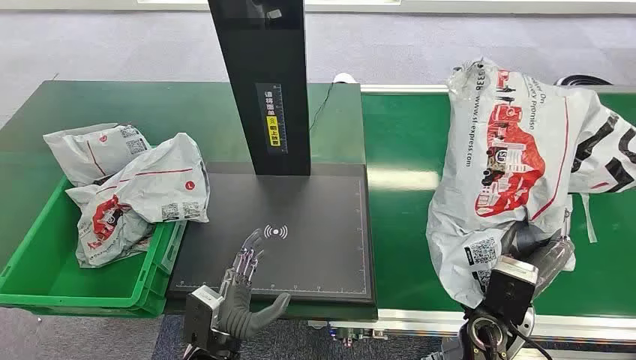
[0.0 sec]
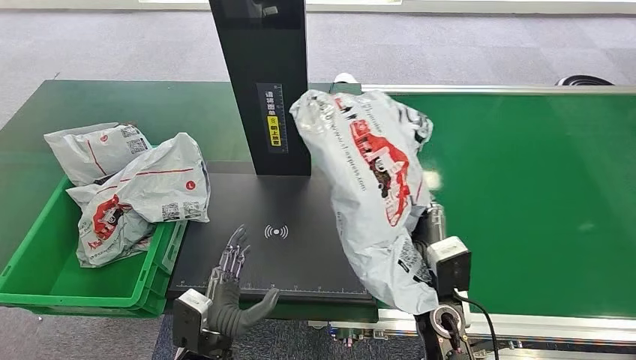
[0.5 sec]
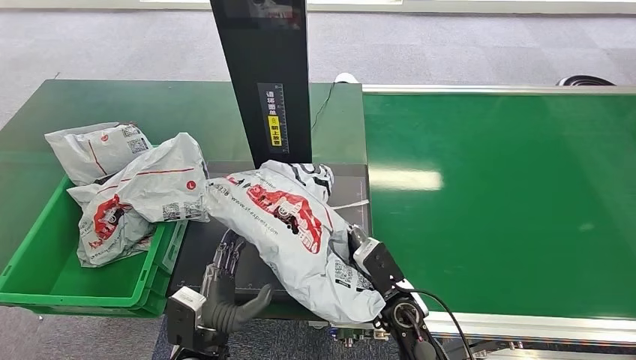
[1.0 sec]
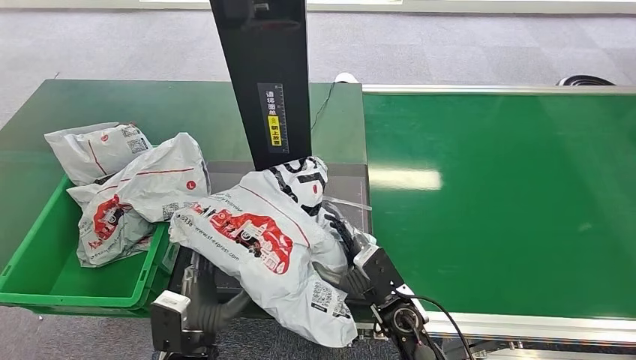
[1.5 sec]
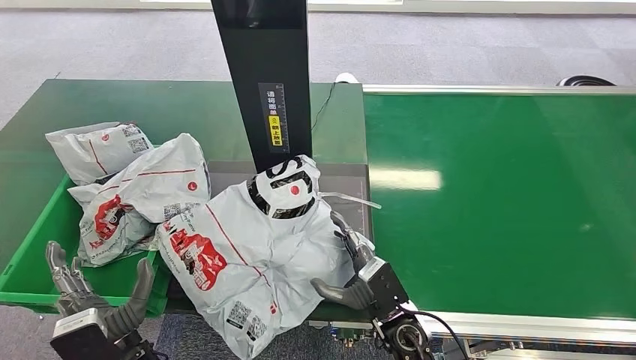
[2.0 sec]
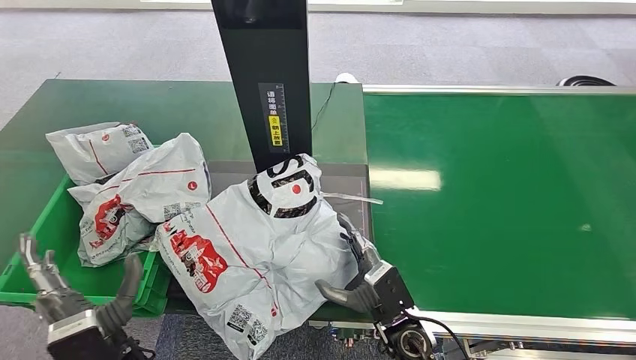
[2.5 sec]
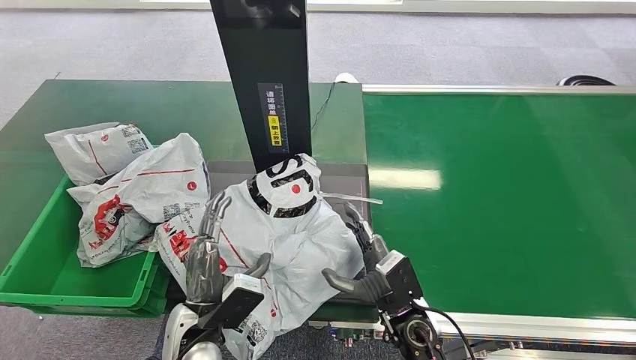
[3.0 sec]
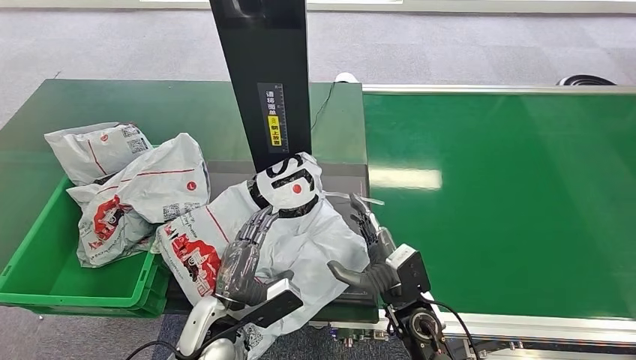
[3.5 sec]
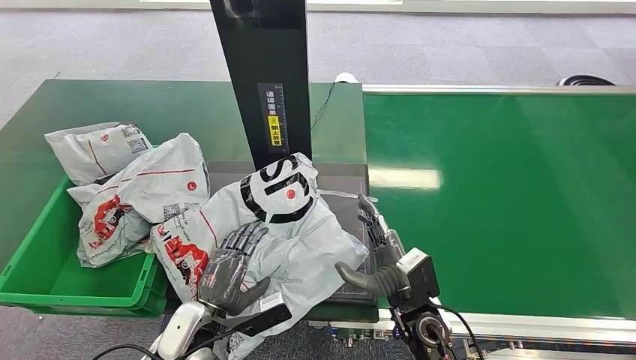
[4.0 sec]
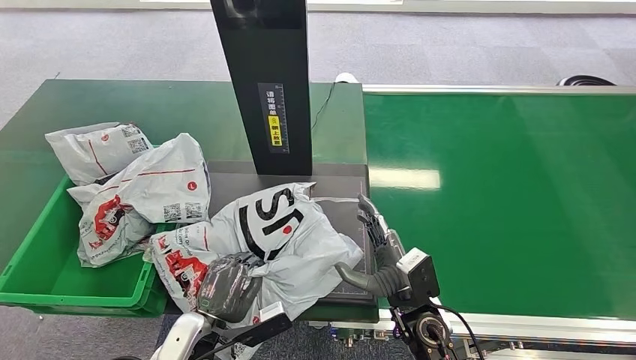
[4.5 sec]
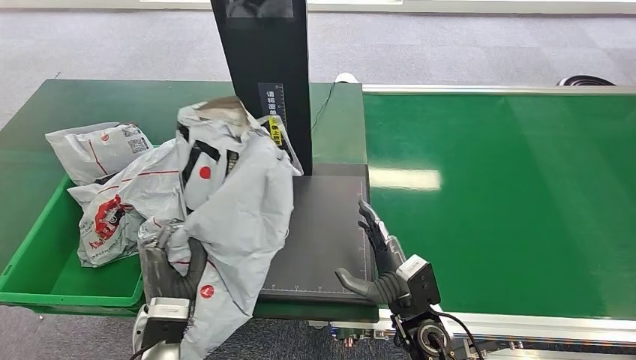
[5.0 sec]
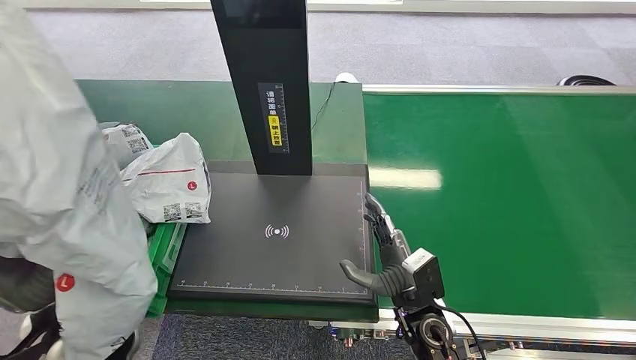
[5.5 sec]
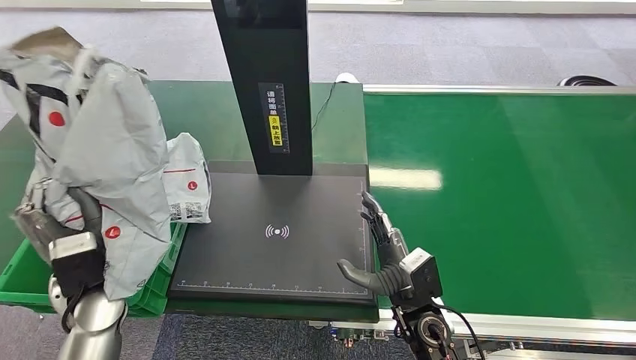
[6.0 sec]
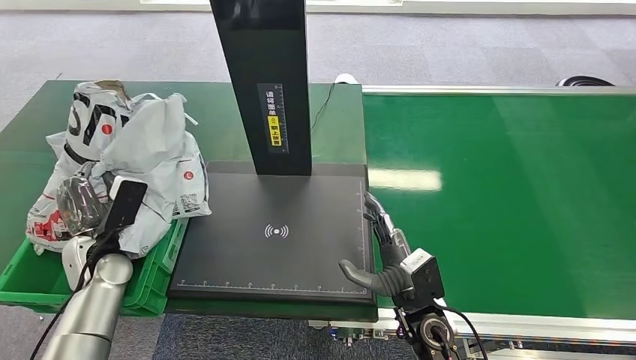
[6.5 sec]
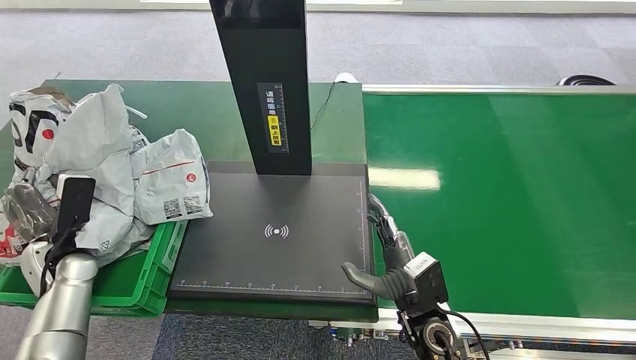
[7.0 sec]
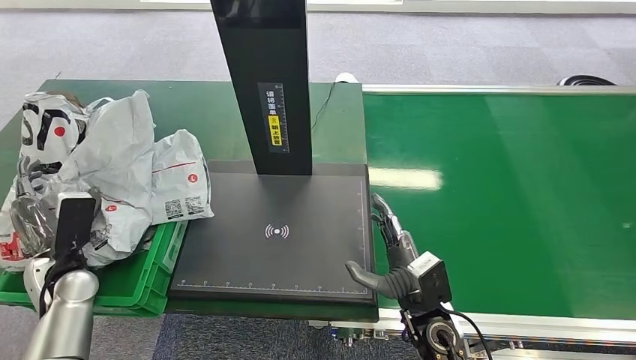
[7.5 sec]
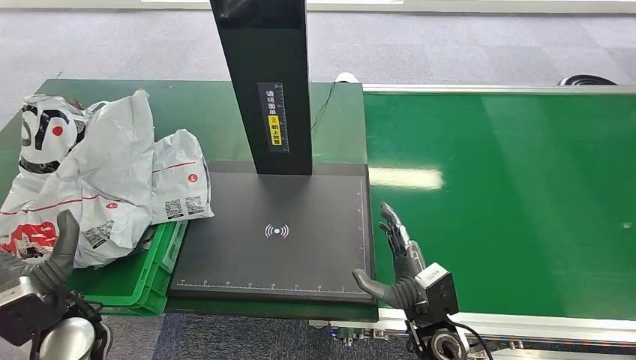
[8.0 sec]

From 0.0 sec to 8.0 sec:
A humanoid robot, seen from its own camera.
From 2.0 sec to 4.0 sec: The left hand moves forward, approximately 5 cm.

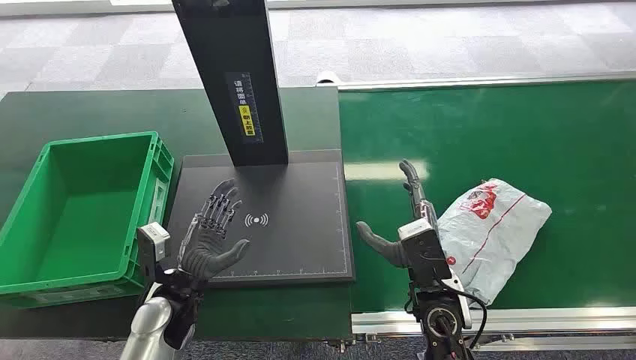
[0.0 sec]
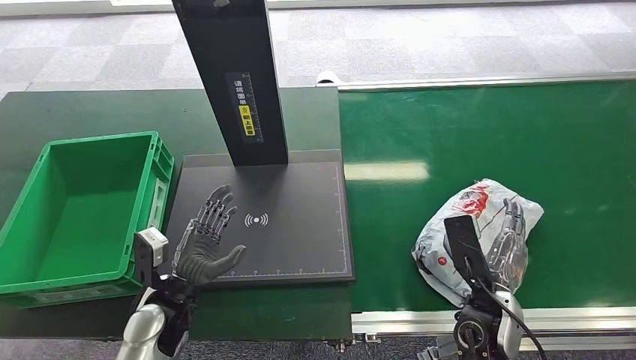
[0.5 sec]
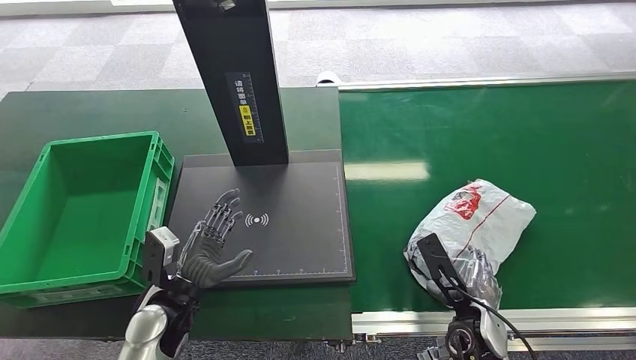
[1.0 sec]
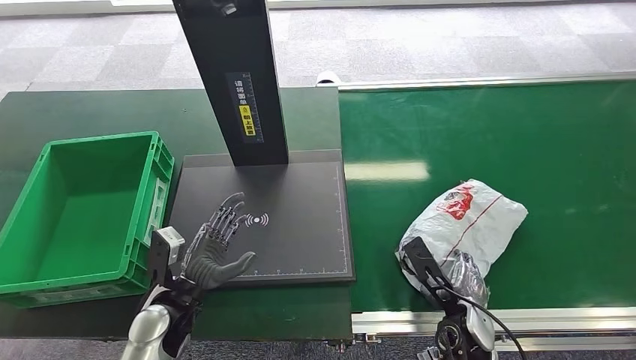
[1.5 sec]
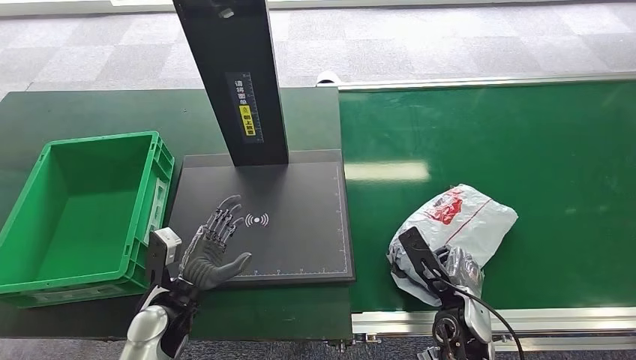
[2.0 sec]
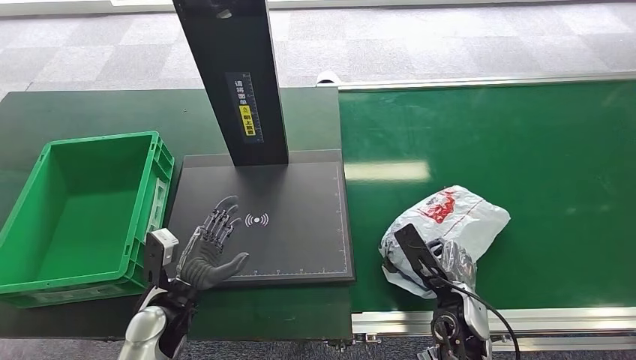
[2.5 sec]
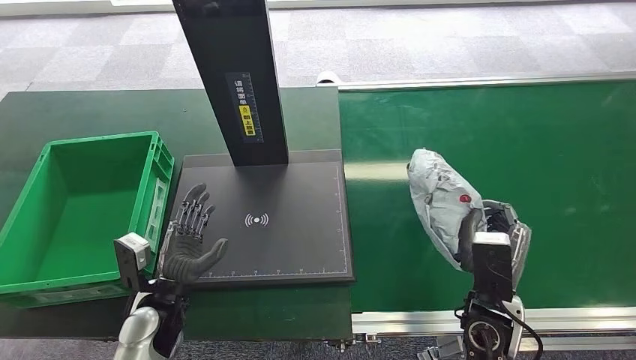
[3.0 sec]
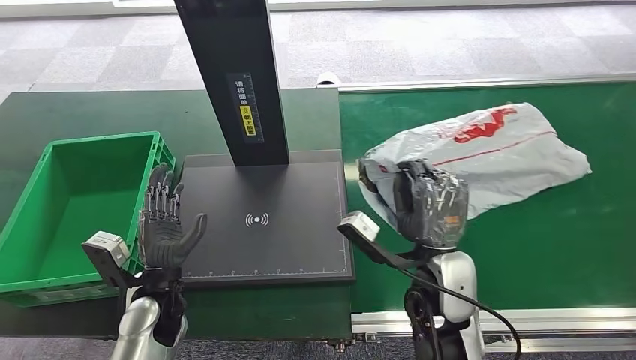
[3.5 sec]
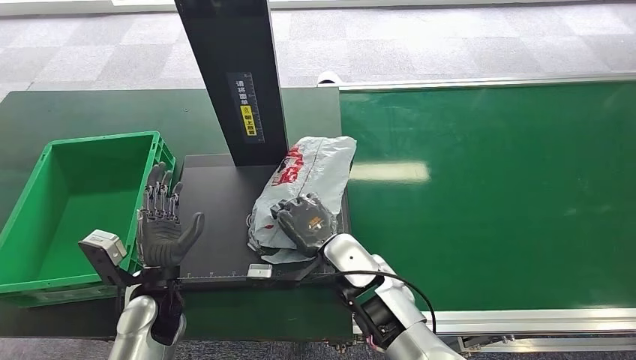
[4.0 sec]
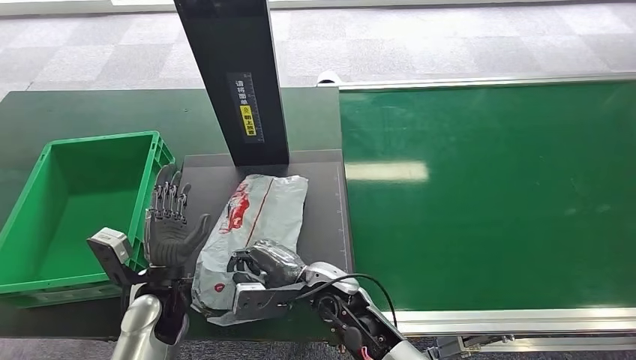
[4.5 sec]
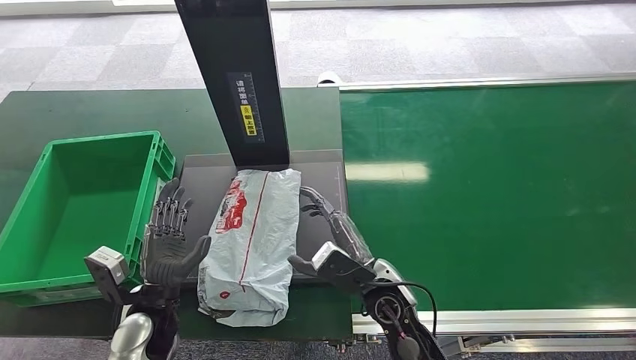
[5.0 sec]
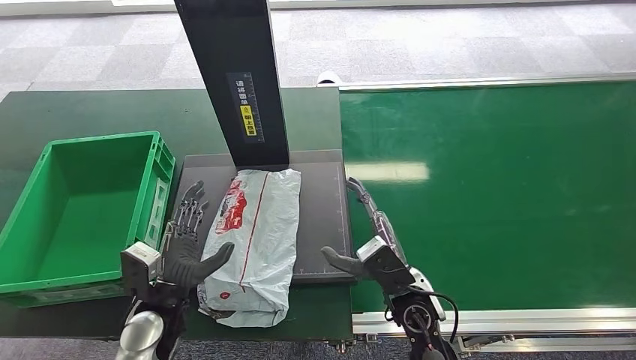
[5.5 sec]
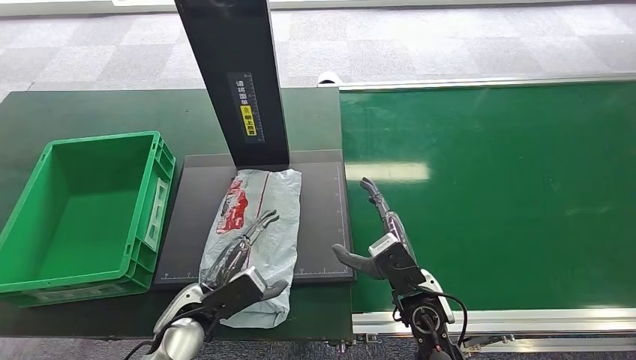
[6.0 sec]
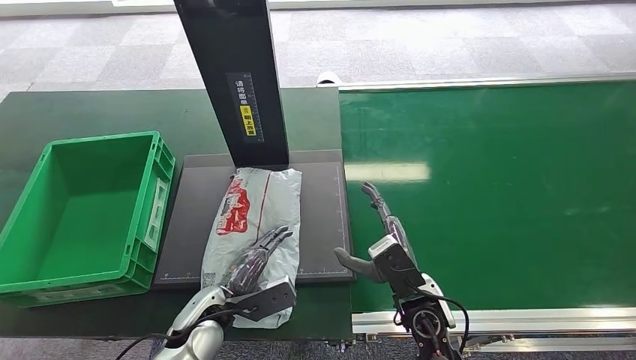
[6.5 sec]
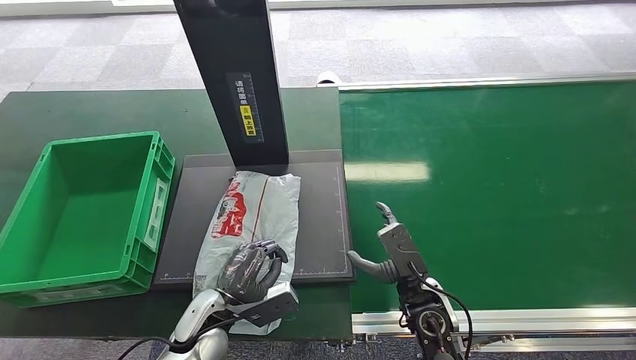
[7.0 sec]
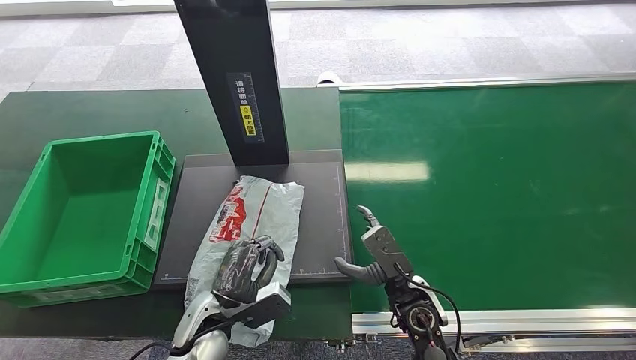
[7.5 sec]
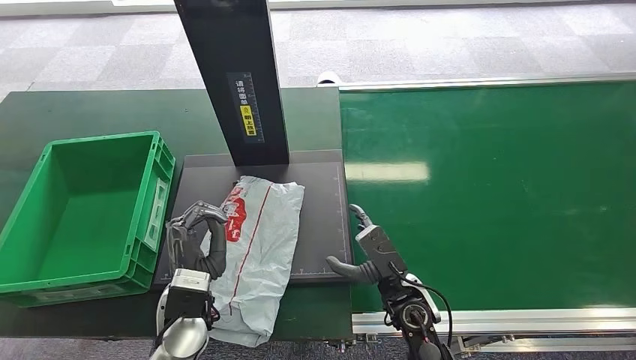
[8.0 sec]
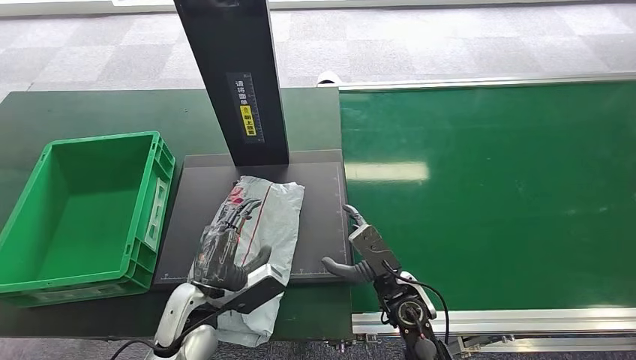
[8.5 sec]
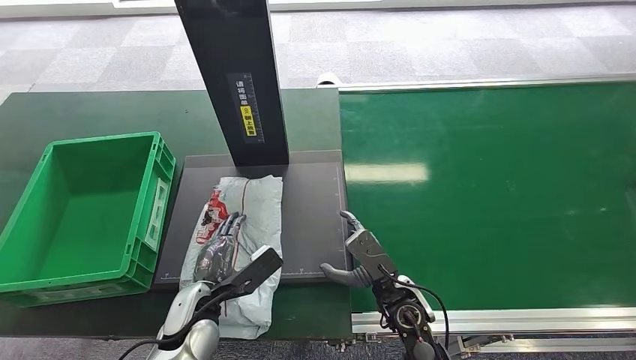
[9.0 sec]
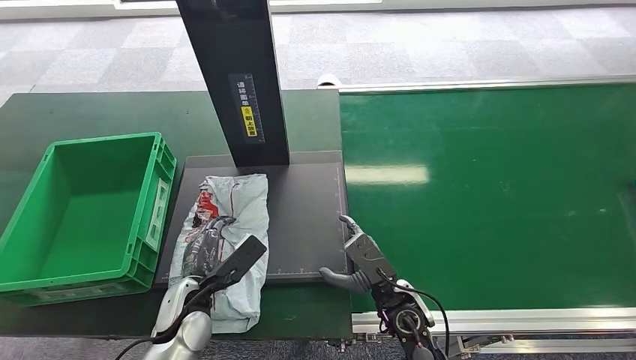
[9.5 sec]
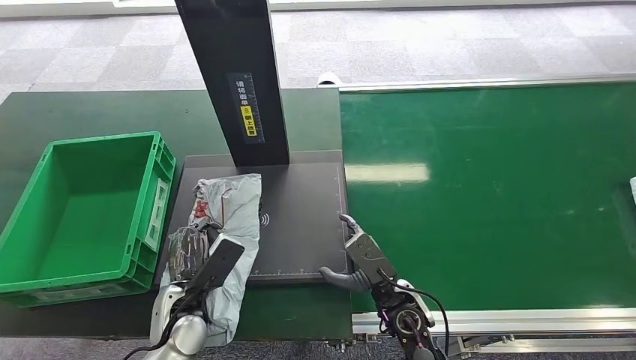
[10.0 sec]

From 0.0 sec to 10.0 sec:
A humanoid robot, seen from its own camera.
Step, from 0.0 sec to 2.5 sec: Pick up the package from the conveyor belt.
Step, from 3.5 sec to 5.5 sec: Place the package onto the inbound machine.
From 2.0 sec to 4.0 sec: The right hand goes about 15 cm to the left.
From 4.0 sec to 6.0 sec: The right hand heads to the right and backward, covering some 10 cm, while the left hand moves approximately 5 cm.

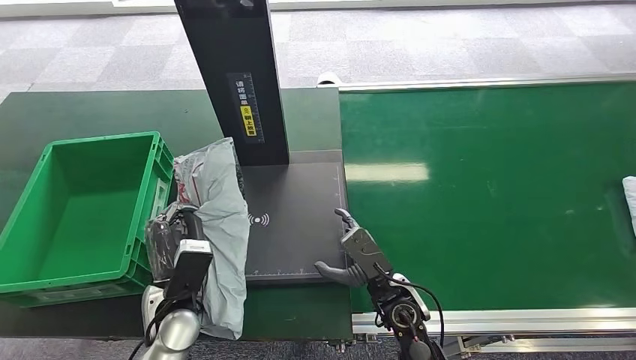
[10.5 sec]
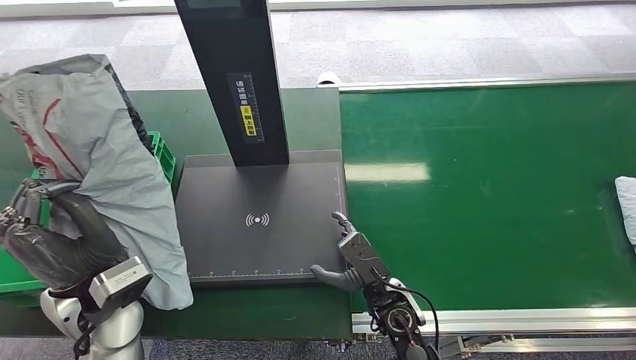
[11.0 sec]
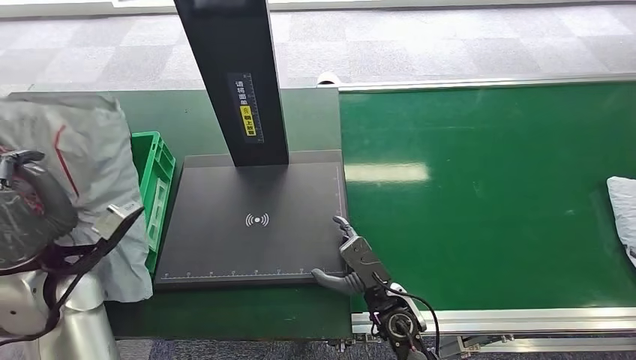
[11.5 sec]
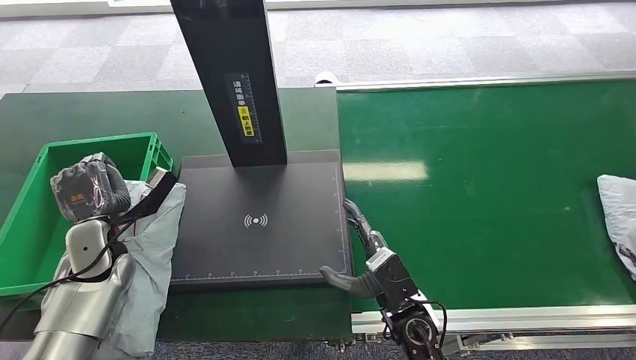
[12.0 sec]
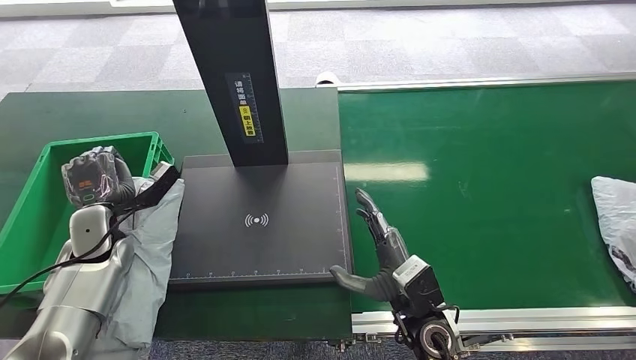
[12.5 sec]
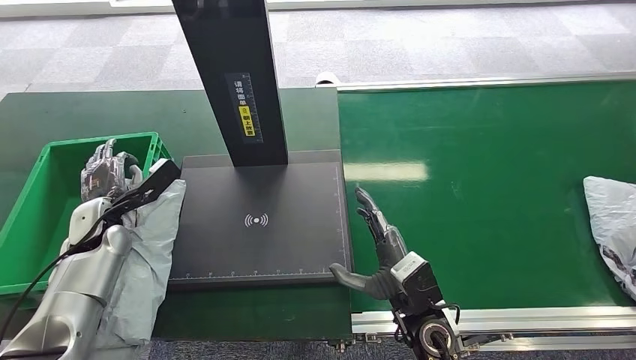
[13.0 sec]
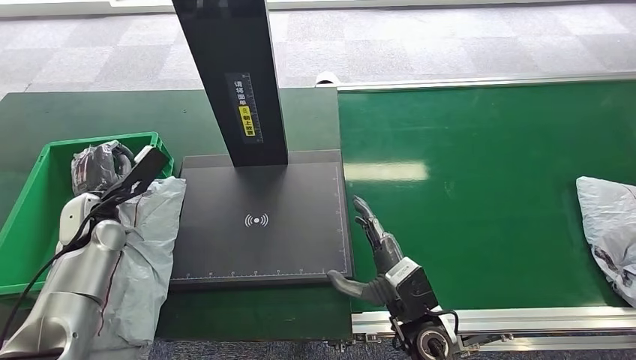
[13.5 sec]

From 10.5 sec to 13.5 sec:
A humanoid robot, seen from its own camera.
Step, from 11.0 sec to 13.5 sec: Place the package into the parcel locker.
From 12.0 sec to 13.5 sec: The left hand changes place by approximately 5 cm.
